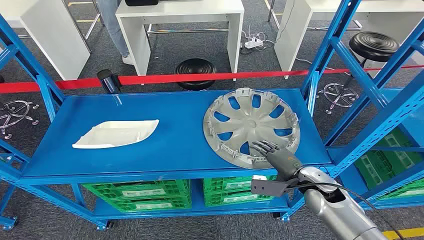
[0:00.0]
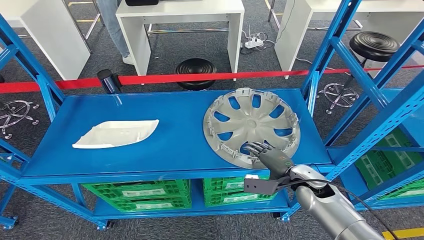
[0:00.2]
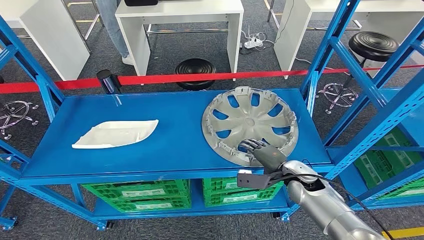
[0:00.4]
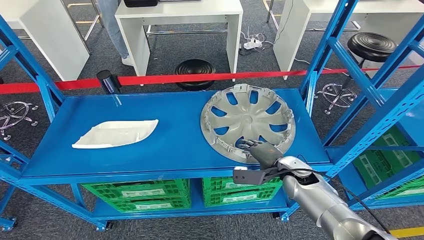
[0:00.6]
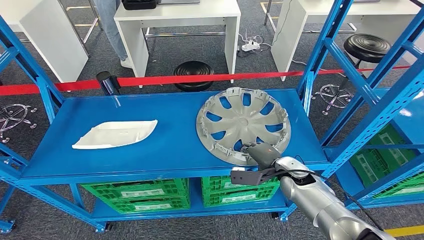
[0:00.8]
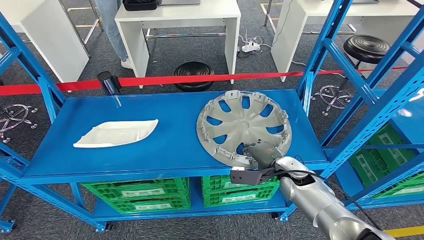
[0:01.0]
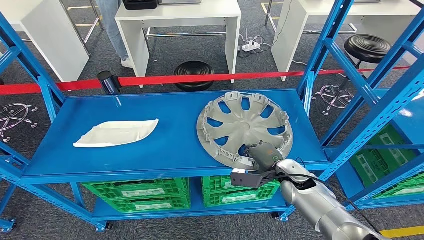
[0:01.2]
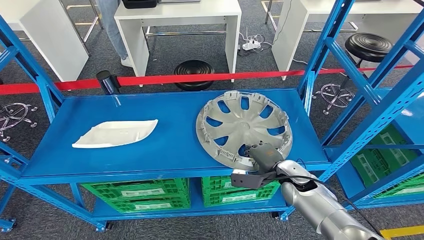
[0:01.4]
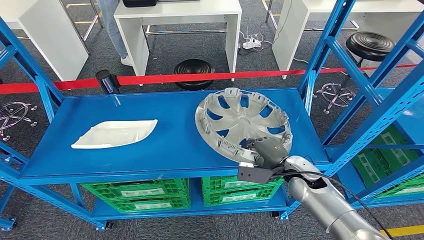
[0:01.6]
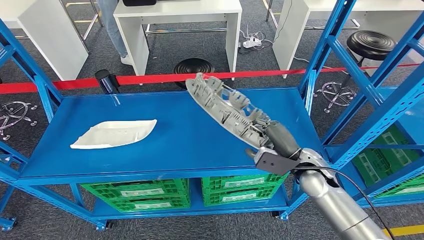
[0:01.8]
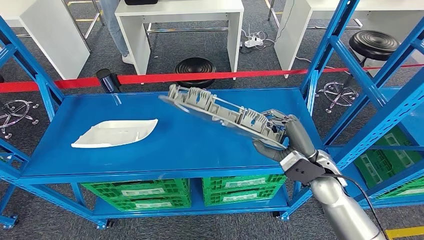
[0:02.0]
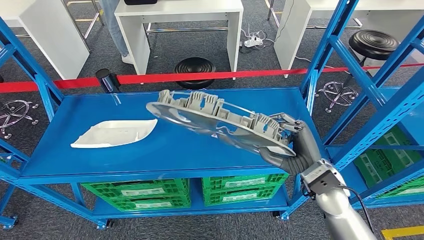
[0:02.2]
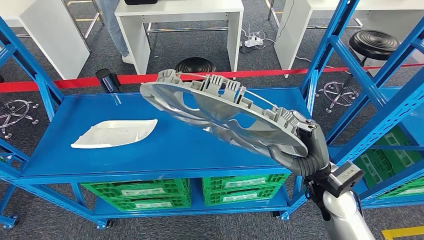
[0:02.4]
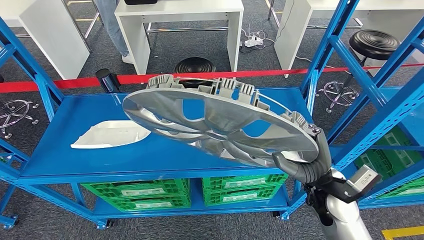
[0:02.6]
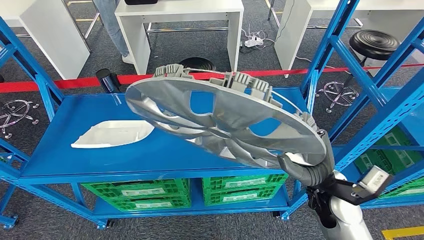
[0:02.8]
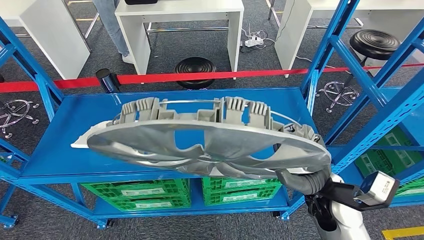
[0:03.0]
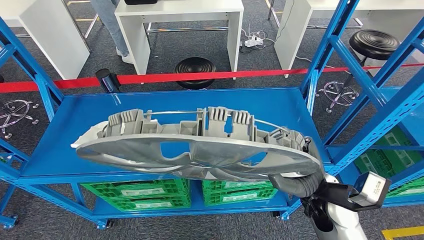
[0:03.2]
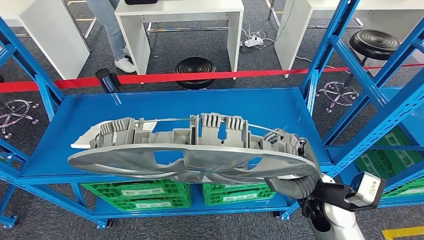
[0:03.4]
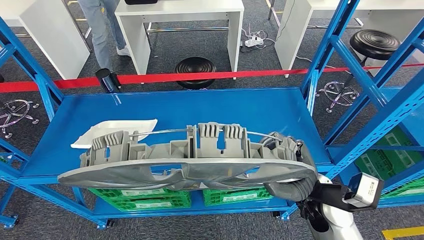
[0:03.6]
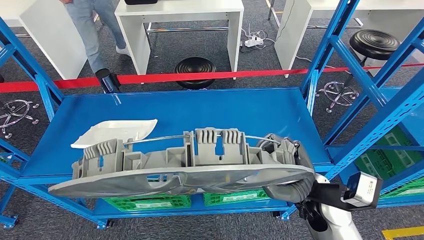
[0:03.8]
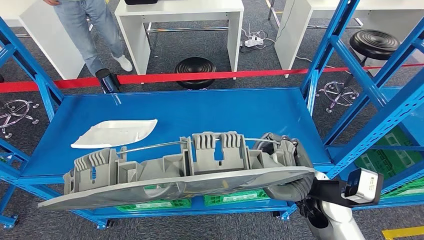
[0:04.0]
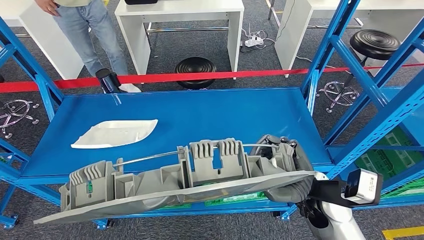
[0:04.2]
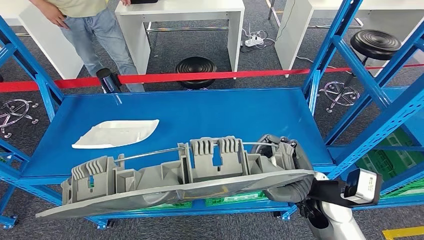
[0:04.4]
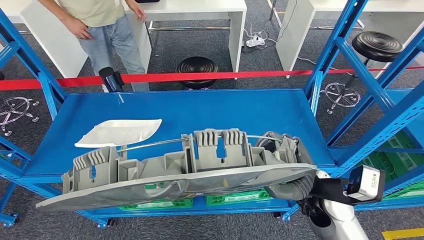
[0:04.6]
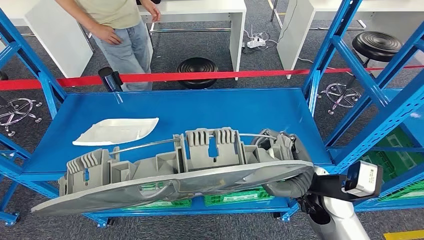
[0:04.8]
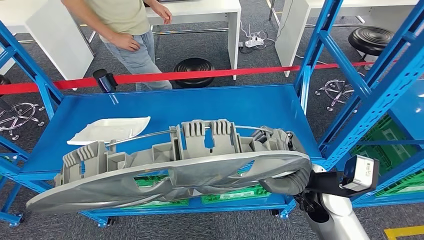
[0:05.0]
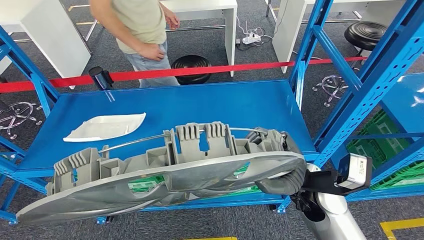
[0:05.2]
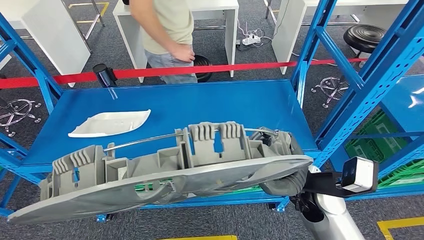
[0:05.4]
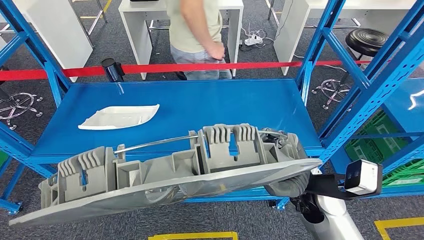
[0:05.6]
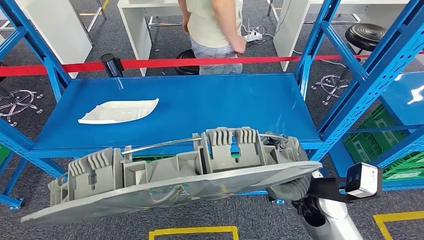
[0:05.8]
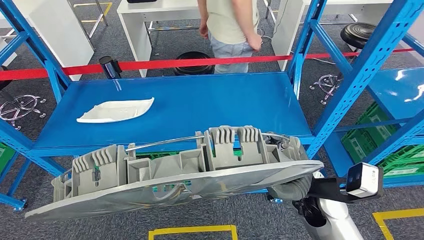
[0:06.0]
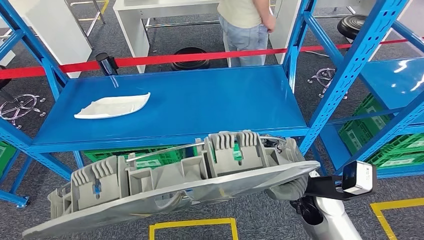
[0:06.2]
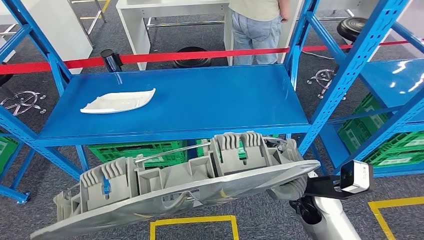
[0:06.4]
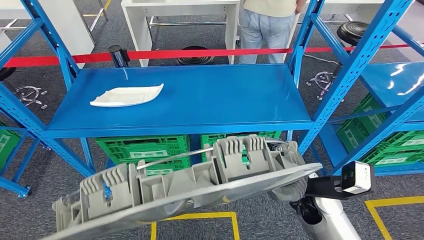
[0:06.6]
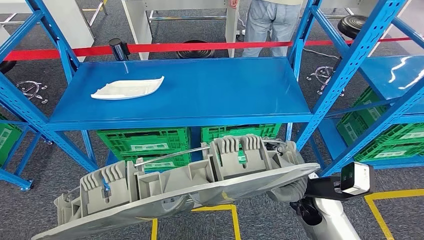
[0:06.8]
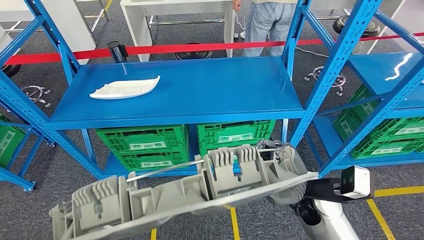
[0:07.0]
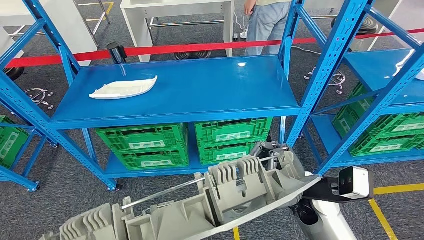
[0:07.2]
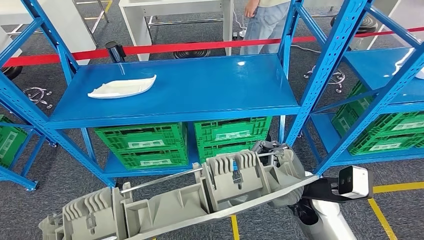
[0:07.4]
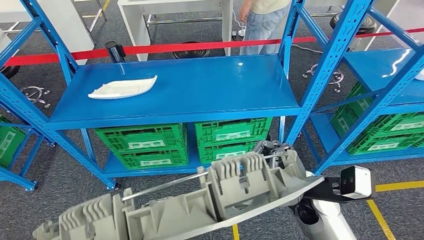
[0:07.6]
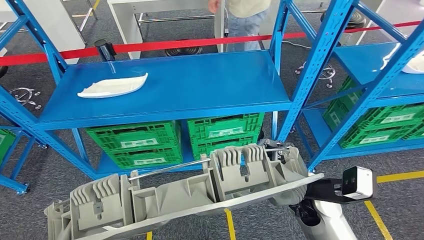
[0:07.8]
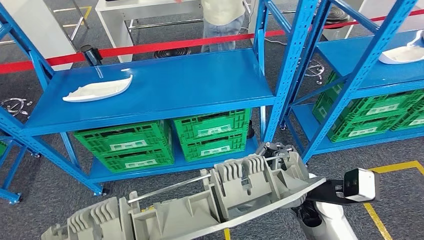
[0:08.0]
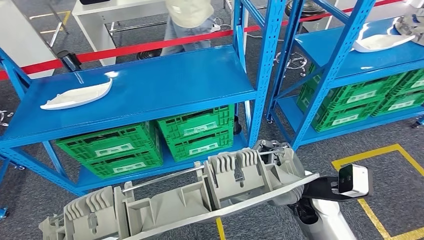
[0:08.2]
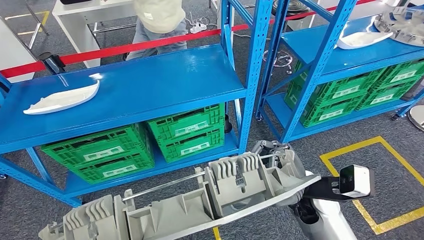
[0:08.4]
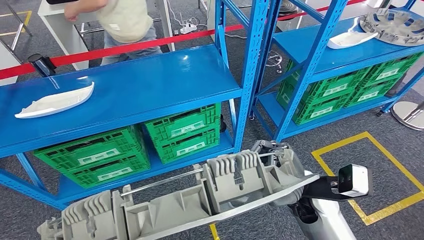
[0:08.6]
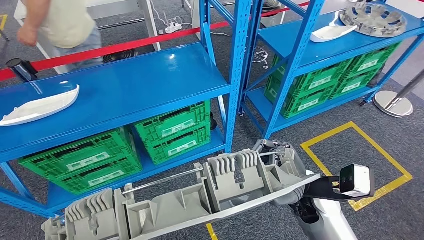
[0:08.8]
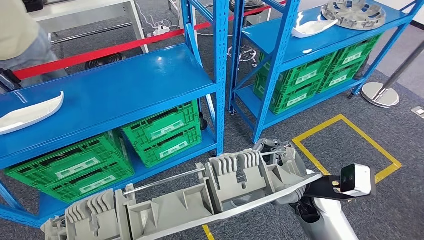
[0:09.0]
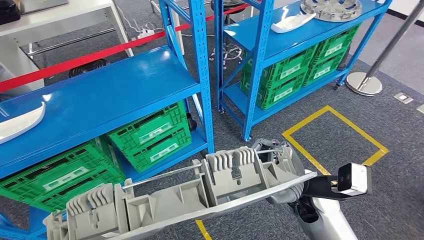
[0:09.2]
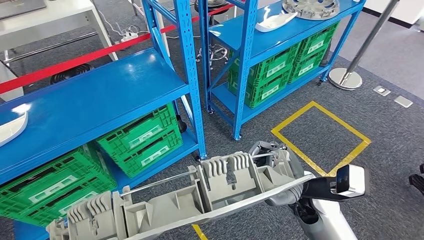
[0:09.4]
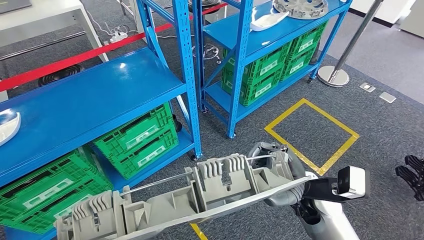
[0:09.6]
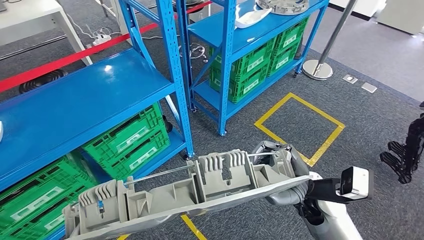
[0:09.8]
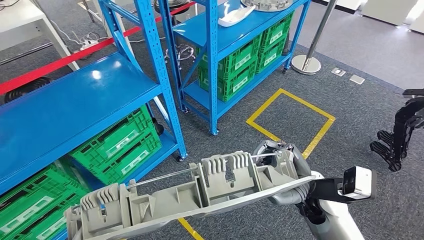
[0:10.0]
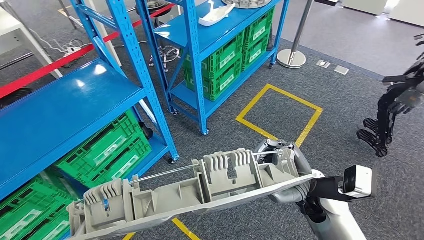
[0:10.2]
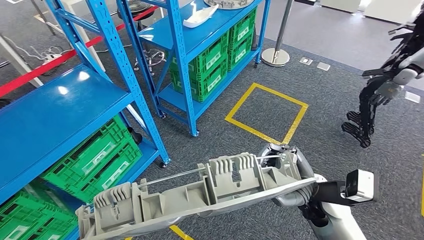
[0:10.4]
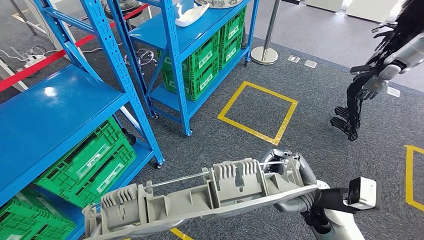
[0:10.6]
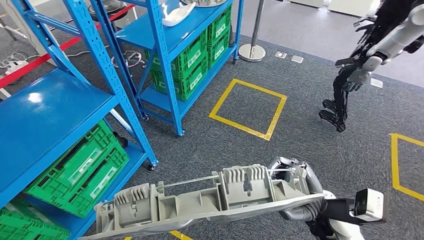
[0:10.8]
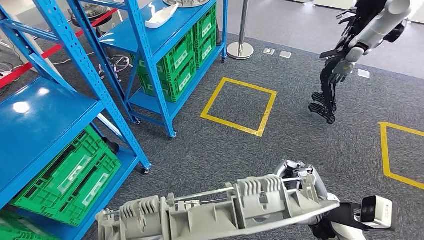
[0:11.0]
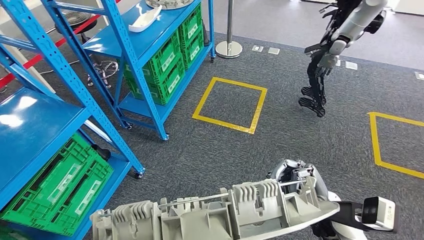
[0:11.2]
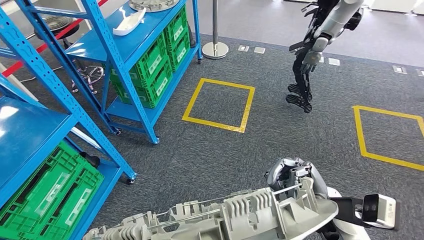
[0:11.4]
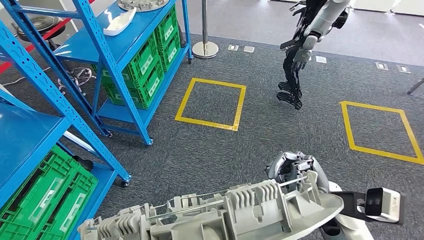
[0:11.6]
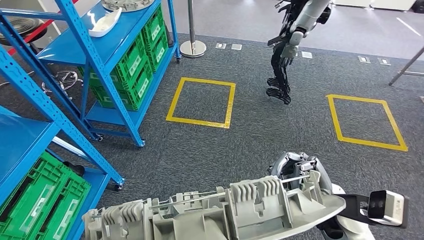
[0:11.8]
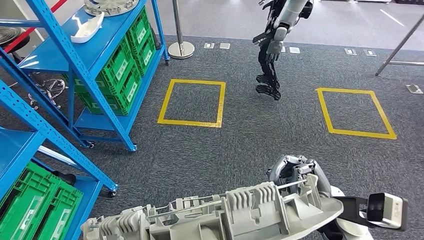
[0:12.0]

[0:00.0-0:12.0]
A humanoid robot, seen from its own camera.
Step, 0:00.0 to 0:02.8: Pick up the small parts from the shelf.

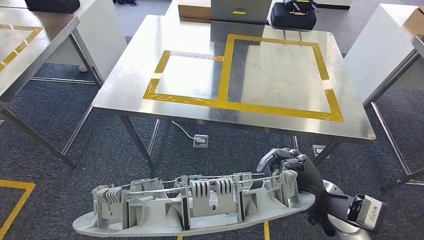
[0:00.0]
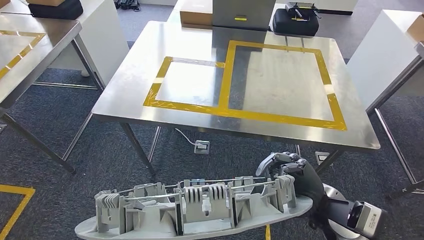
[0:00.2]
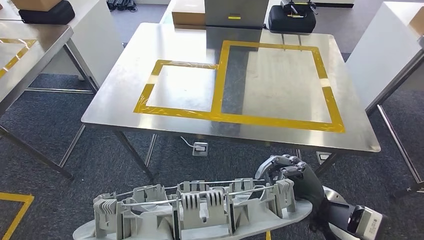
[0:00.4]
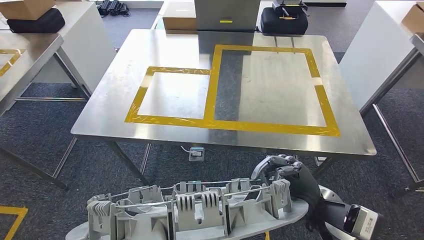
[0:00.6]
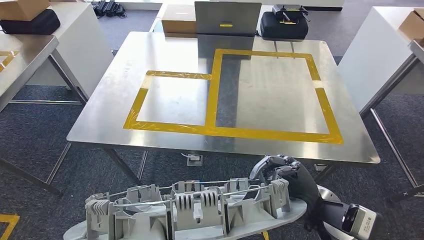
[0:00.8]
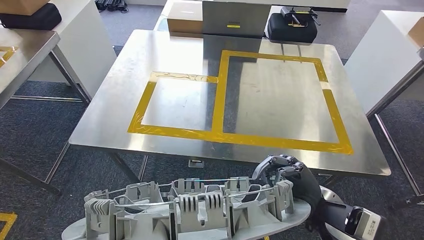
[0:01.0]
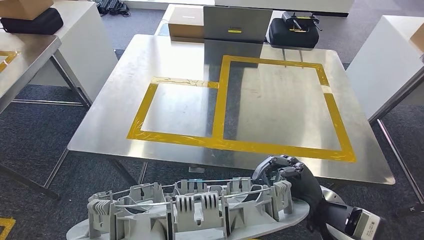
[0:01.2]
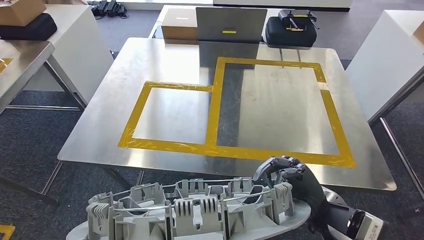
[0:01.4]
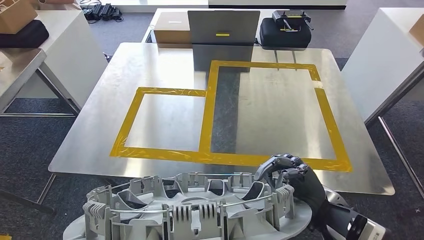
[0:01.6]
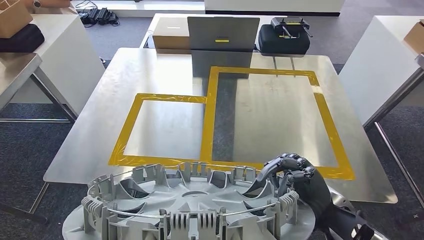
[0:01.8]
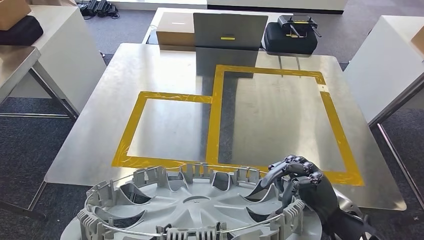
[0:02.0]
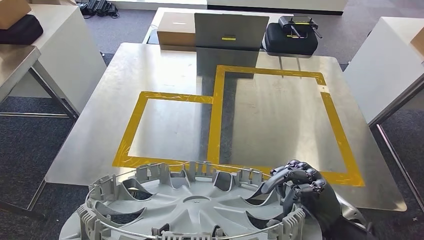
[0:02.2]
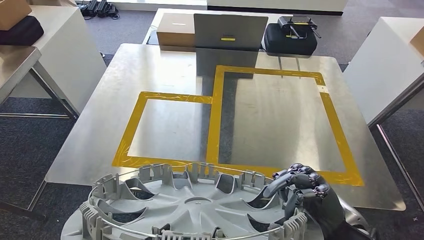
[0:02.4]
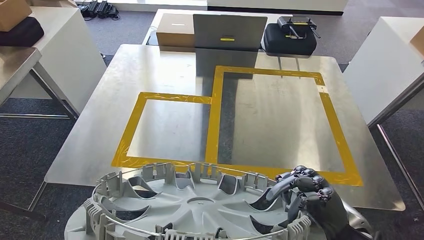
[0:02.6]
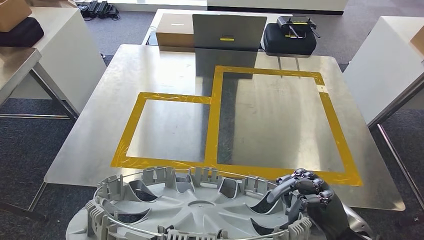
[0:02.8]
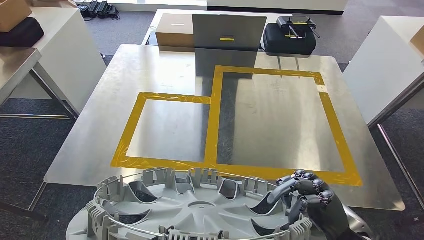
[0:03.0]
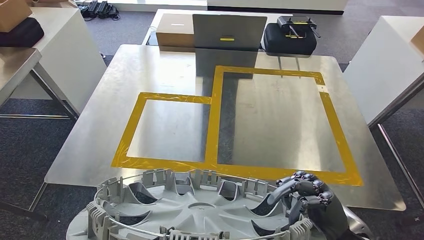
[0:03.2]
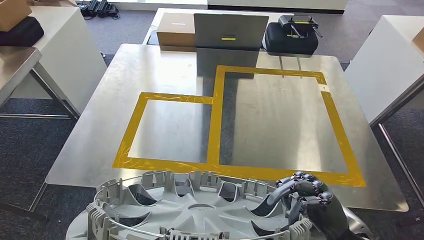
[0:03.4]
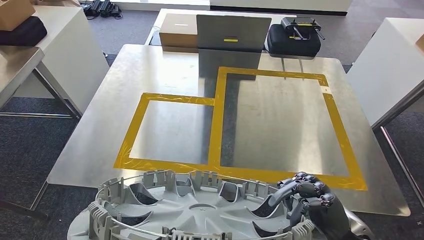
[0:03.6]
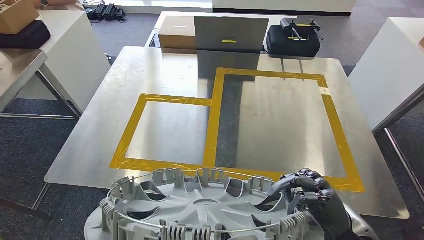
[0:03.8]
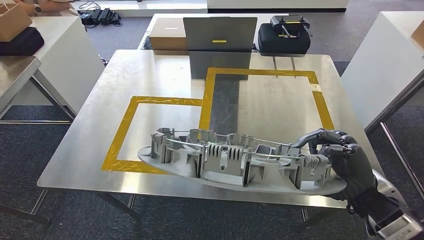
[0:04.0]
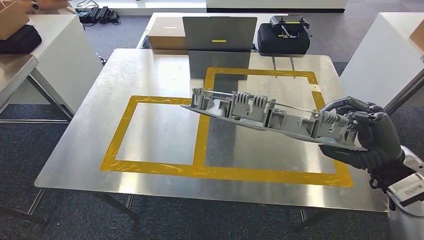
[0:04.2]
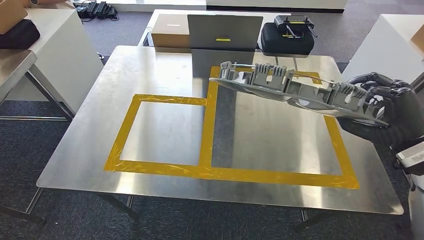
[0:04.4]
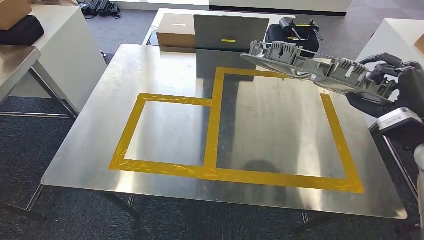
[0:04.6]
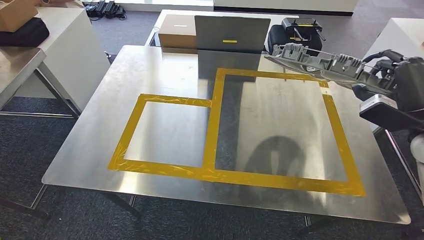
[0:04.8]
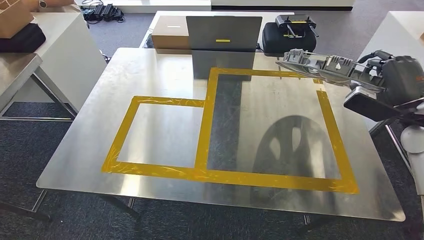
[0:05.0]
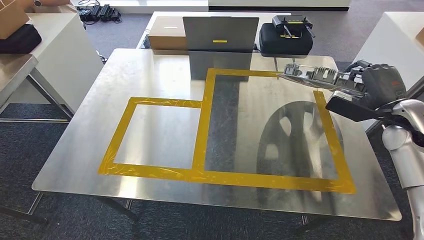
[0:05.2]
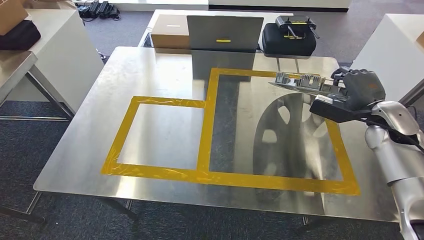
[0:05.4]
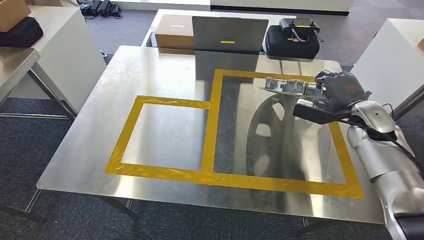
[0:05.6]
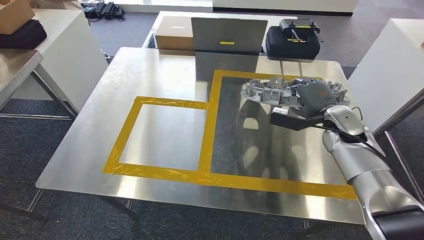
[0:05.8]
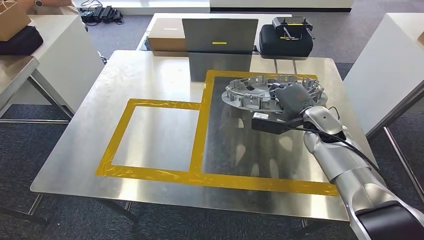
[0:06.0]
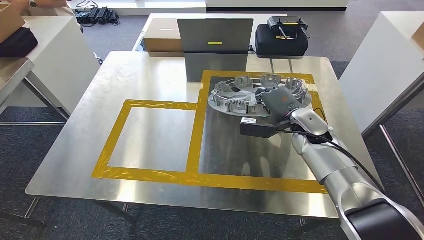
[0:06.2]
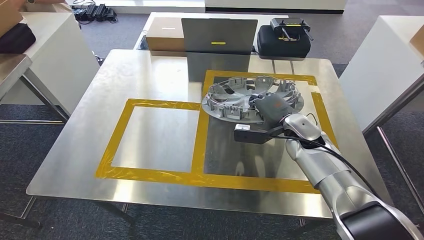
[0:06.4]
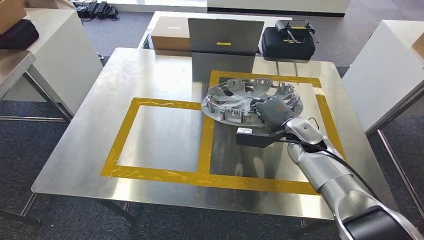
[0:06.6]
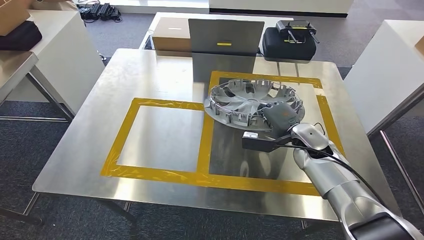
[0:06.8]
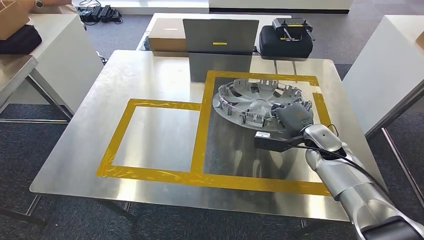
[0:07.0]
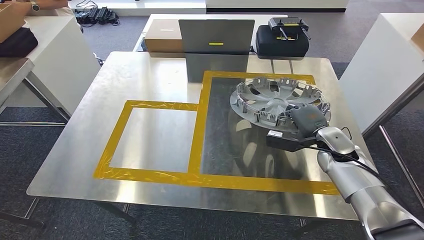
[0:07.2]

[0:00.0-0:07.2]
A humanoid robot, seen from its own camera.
Step, 0:00.0 to 0:03.0: Move the small parts to the workbench.
